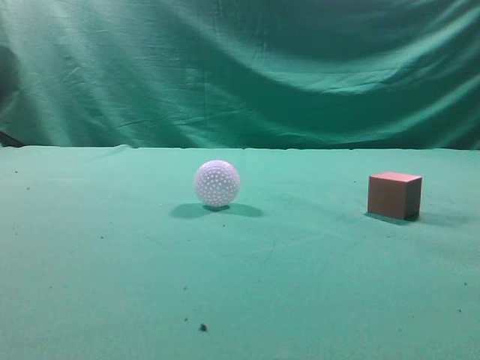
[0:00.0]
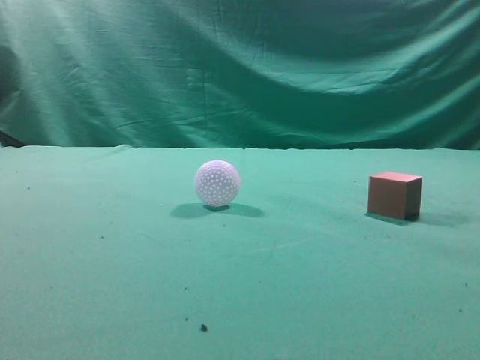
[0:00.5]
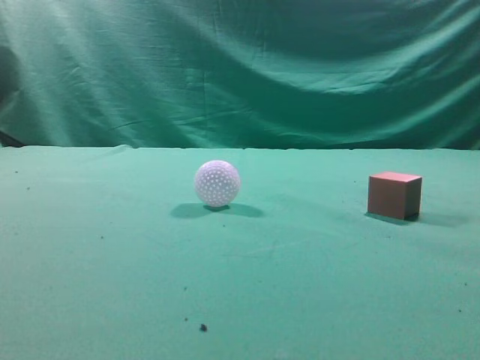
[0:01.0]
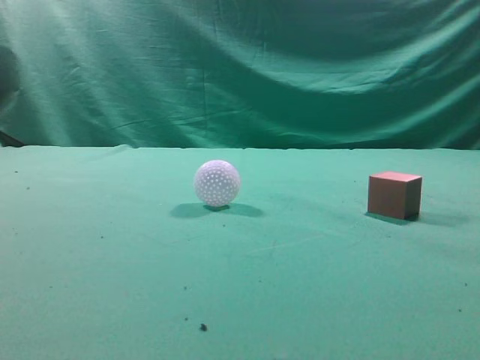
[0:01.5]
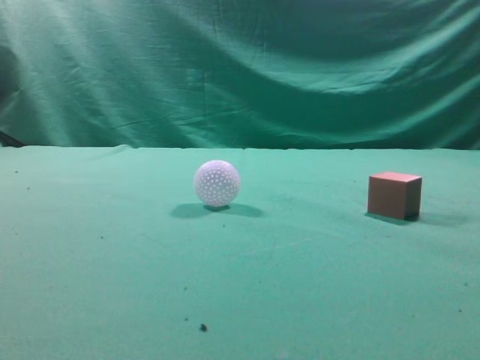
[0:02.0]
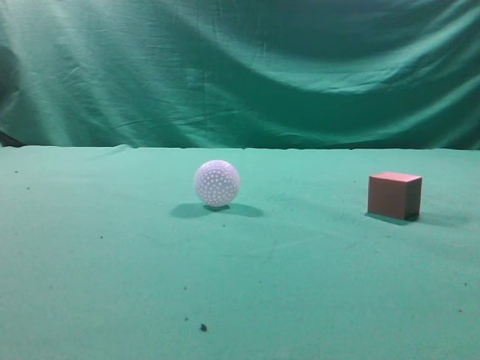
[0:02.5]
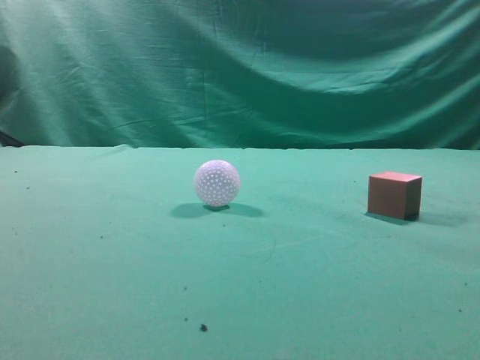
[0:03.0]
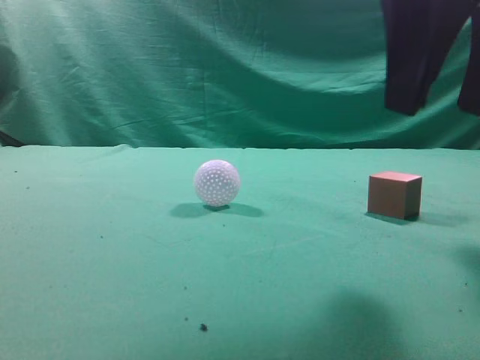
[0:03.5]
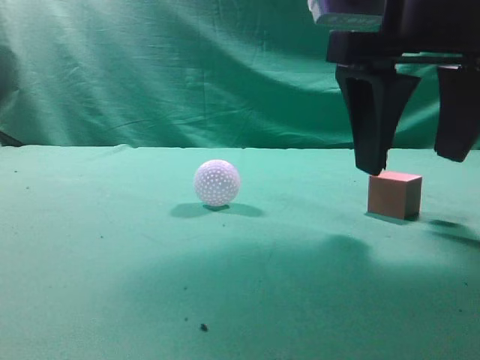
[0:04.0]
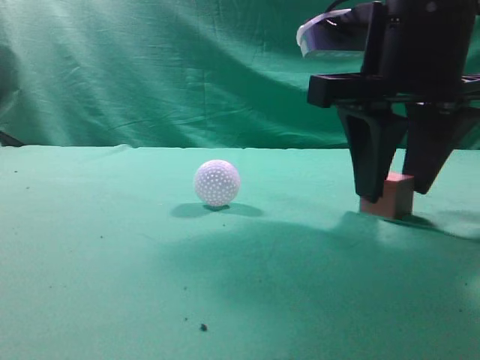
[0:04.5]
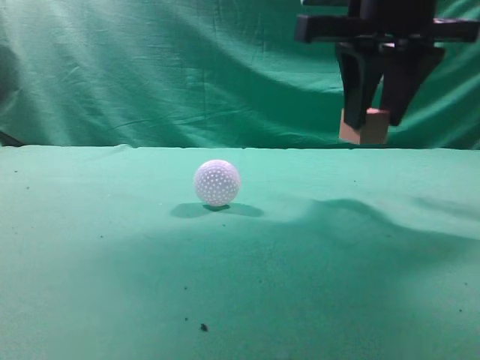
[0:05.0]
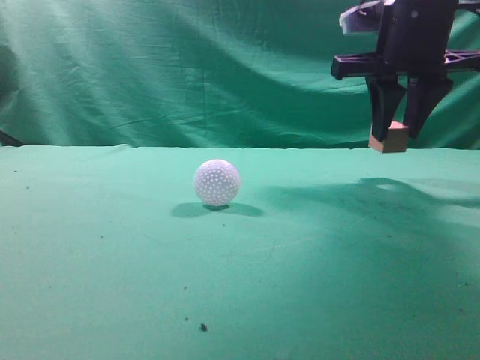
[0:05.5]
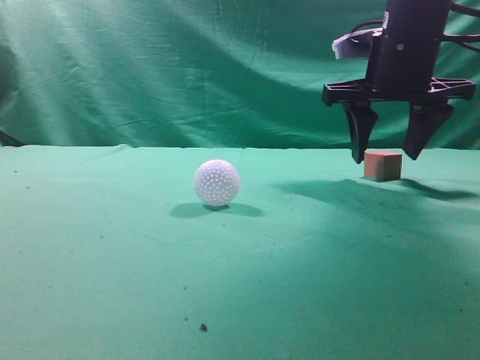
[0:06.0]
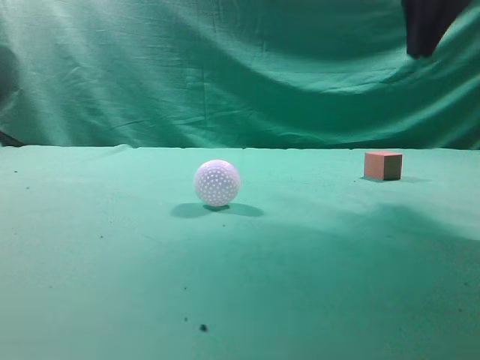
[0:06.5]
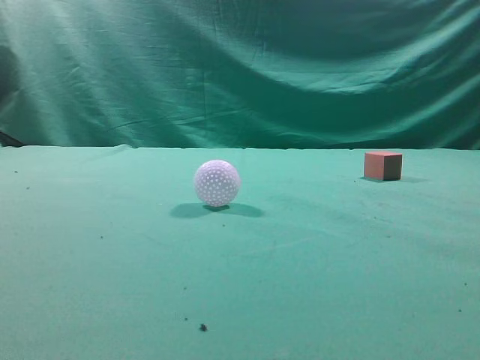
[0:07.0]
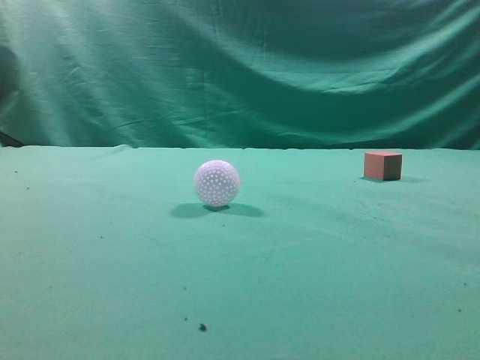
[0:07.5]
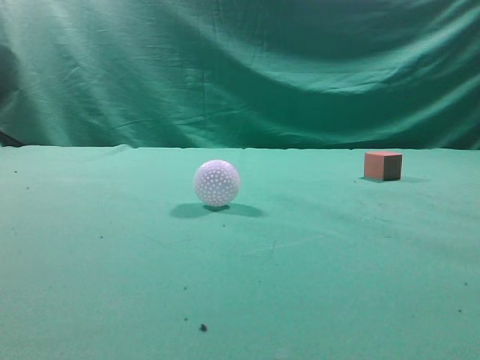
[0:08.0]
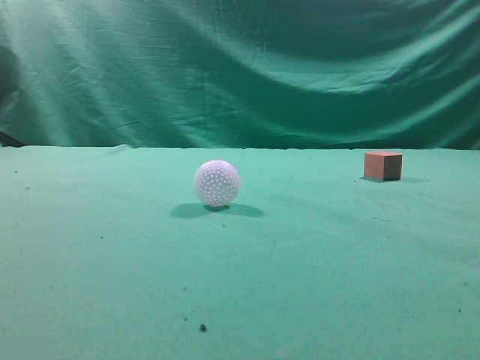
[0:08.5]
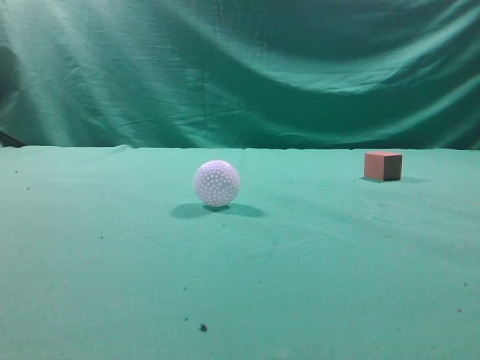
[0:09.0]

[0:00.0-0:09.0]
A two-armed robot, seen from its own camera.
Task of the whole recording: pick up the cube block and place it in another position on the table.
Step, 0:00.0 to 0:04.5: Pick up the small cube.
Step, 0:05.0 to 0:06.0: Place the small cube on the ahead of the table.
0:02.0 to 0:04.5: The right gripper moves forward, to the left and downward, approximately 30 cm, and opens its fingers.
0:04.5 to 0:07.0: The right gripper goes roughly 20 cm upward and to the right, and closes its fingers.
